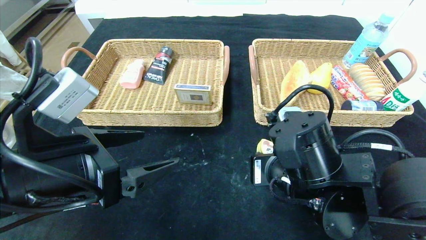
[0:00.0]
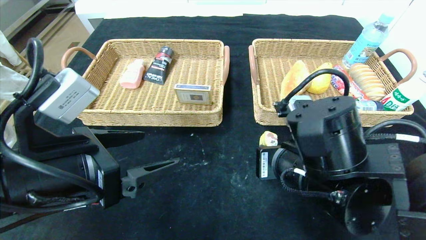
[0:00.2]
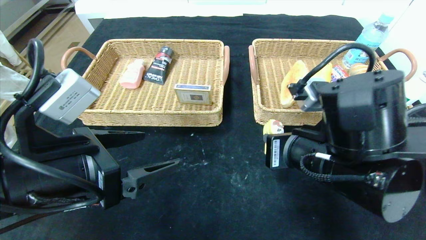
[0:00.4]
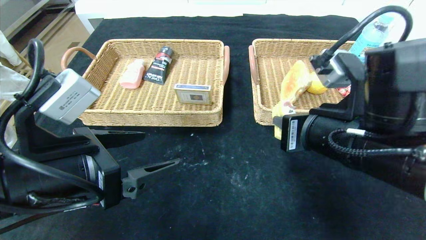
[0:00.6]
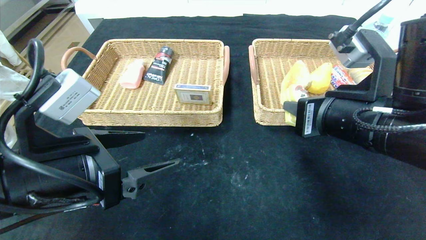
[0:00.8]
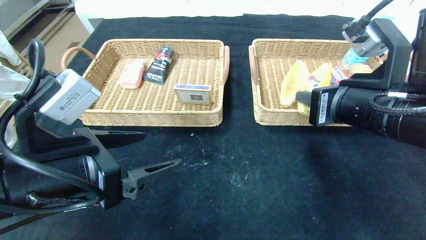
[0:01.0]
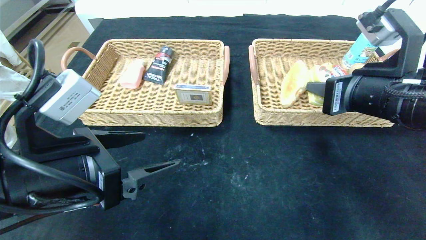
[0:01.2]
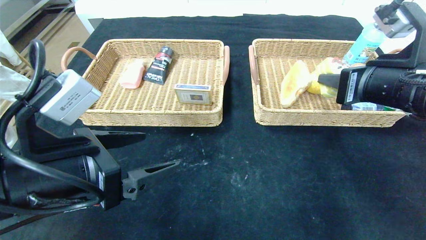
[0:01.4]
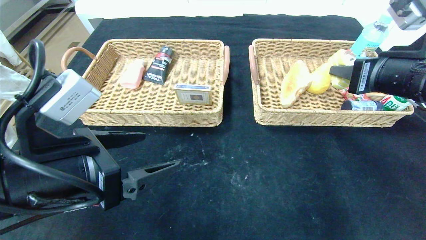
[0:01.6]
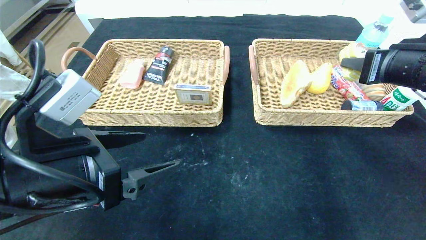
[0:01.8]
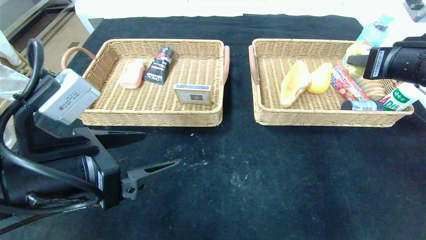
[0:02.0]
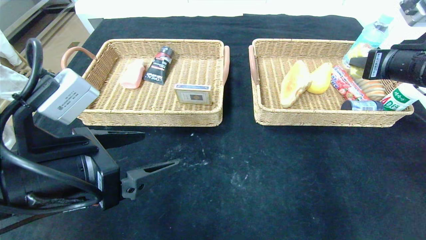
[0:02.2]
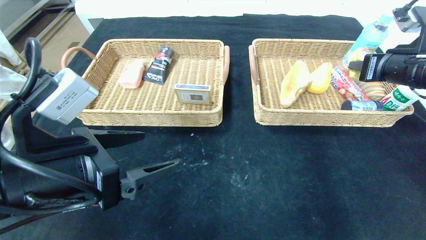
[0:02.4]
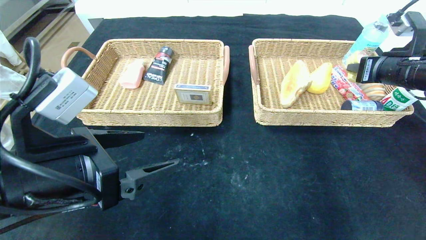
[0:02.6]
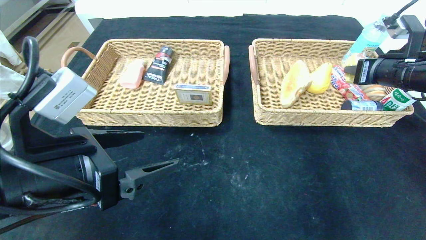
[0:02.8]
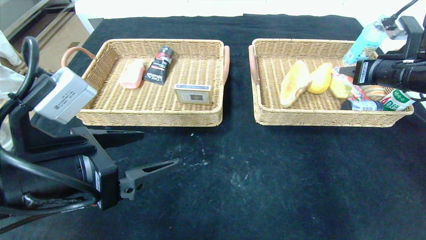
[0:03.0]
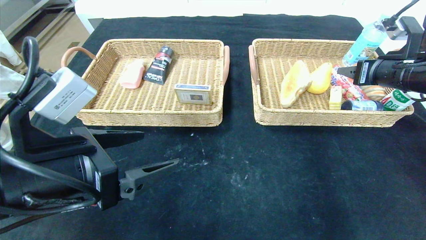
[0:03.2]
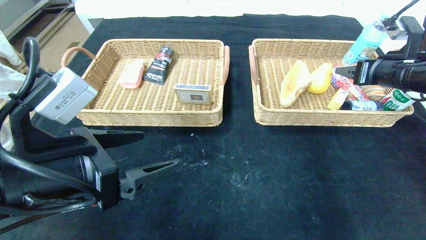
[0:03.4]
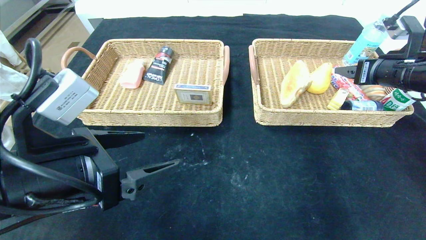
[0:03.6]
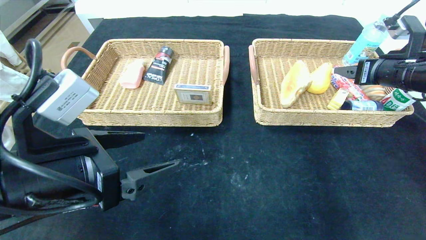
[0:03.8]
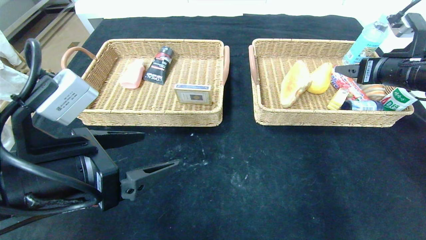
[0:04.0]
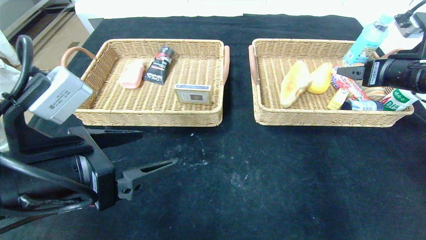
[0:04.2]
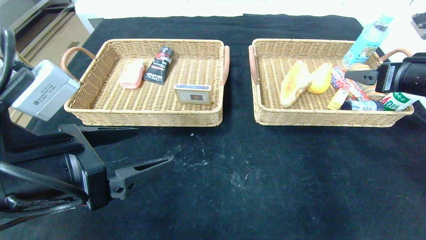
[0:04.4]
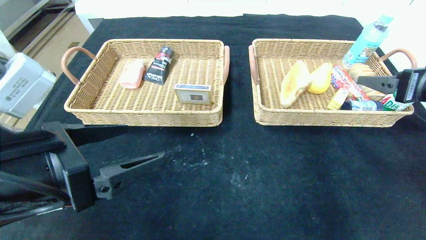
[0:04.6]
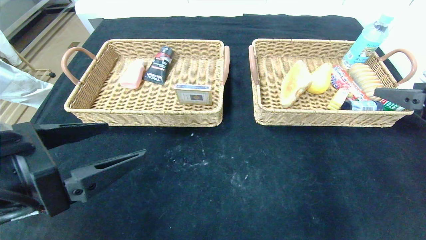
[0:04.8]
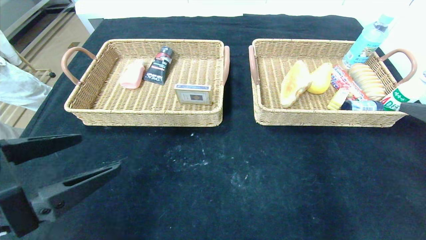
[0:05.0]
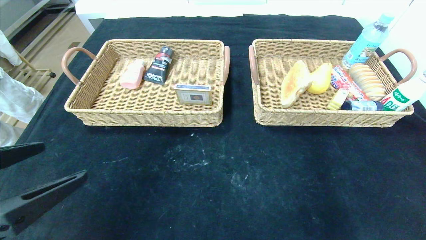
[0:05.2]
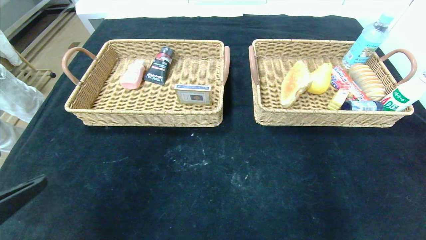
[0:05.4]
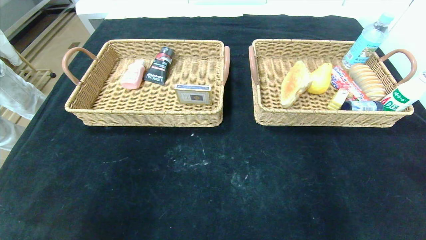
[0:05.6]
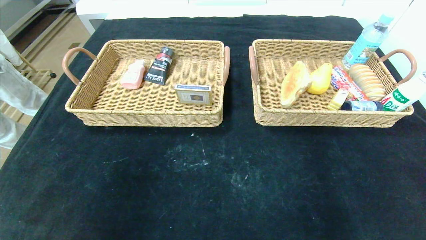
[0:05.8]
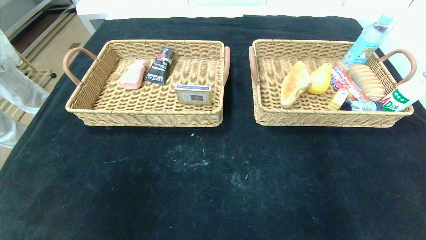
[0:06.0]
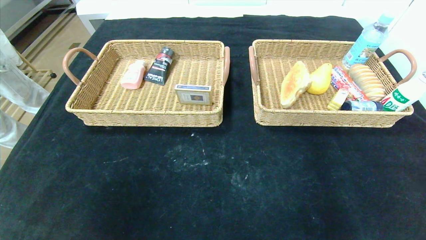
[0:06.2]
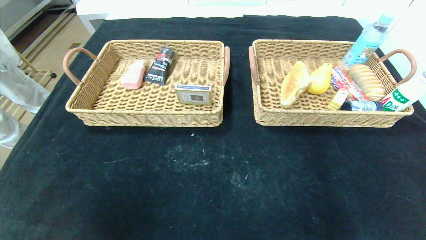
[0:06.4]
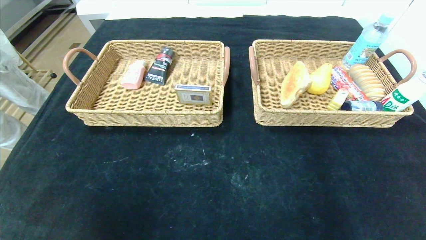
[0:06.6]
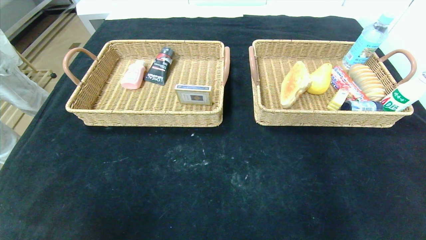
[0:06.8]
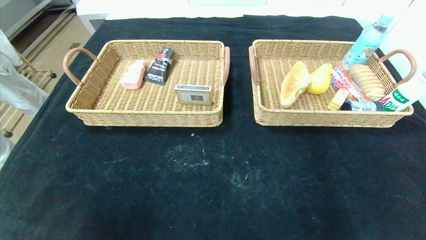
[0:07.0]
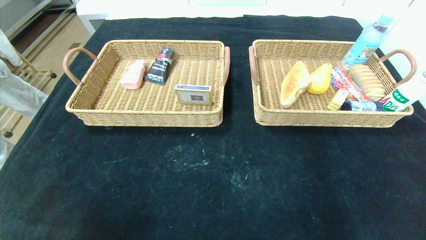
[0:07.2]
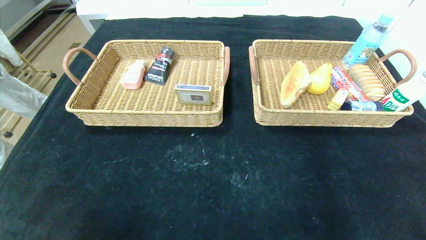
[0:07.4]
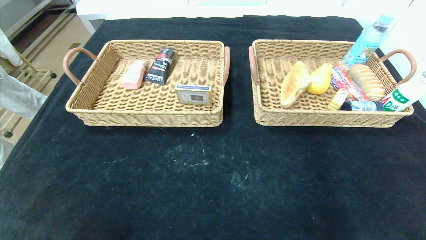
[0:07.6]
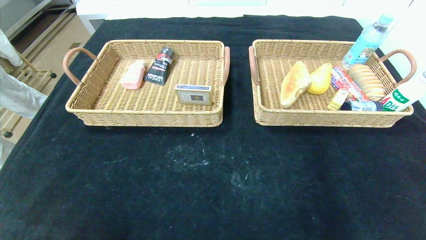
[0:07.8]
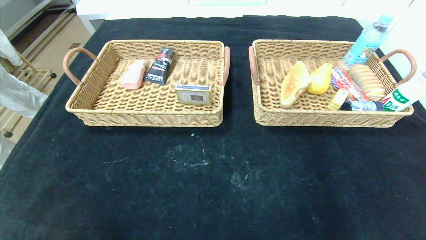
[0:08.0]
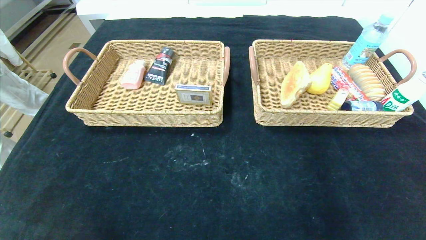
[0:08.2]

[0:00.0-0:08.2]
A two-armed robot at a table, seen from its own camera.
Step, 0:00.0 to 0:03.0: Grasp the yellow cake and put it in the right basket.
0:00.0 to 0:01.6: The right gripper heads to the right and upward, covering approximately 20 cm.
0:01.6 to 0:03.2: The right gripper shifts about 10 cm forward and to the right, and opens.
0:03.2 to 0:05.0: The right gripper goes roughly 20 cm backward, and opens its fingers; the left gripper is displaced backward and to the left by some 10 cm.
0:05.0 to 0:06.6: The left gripper shifts approximately 15 cm backward; the right gripper shifts some 25 cm backward and downward.
0:06.6 to 0:08.2: The left gripper heads downward and forward, covering some 15 cm.
